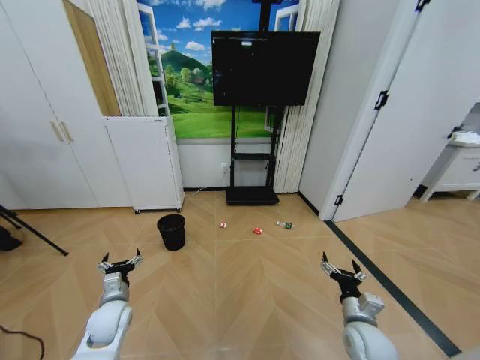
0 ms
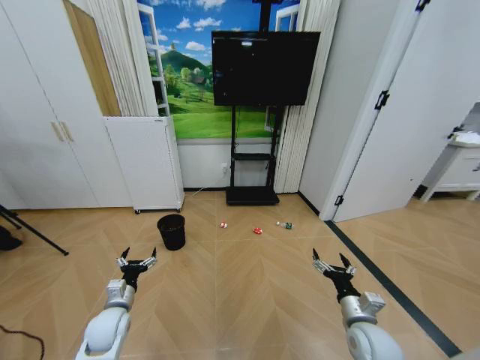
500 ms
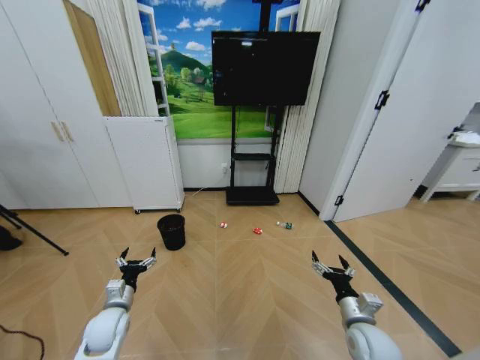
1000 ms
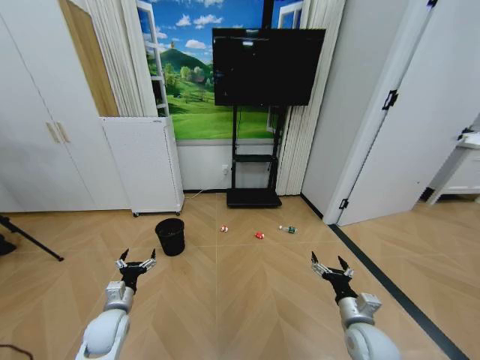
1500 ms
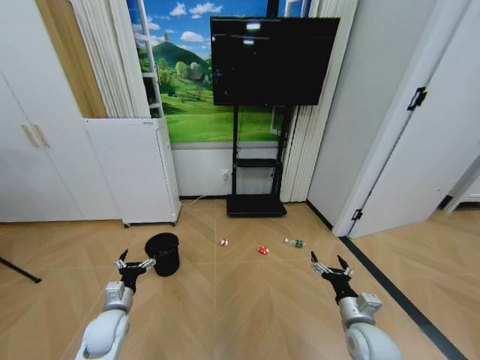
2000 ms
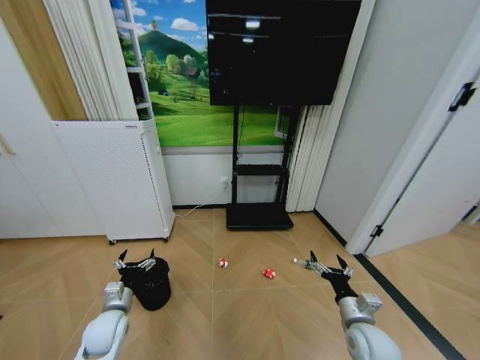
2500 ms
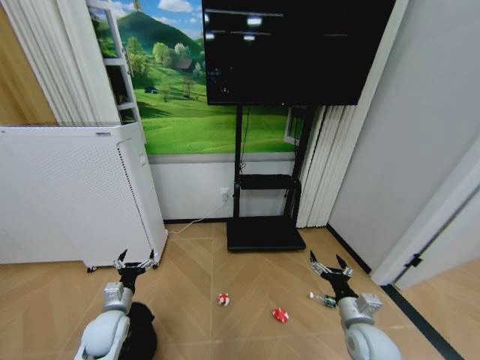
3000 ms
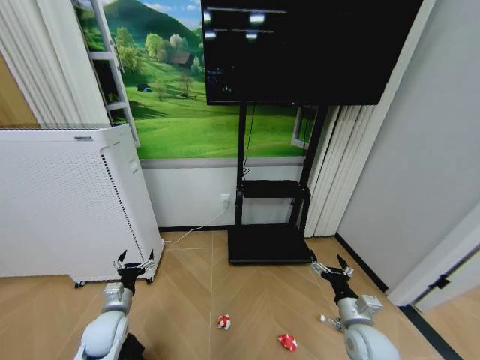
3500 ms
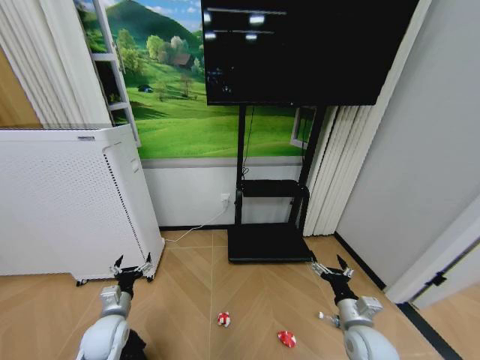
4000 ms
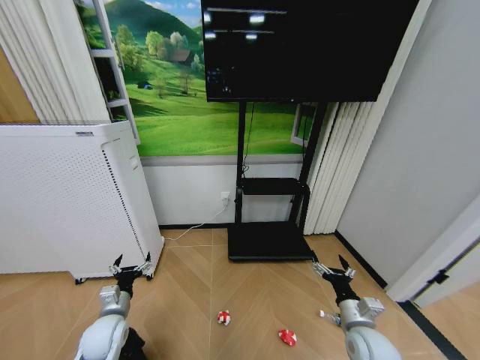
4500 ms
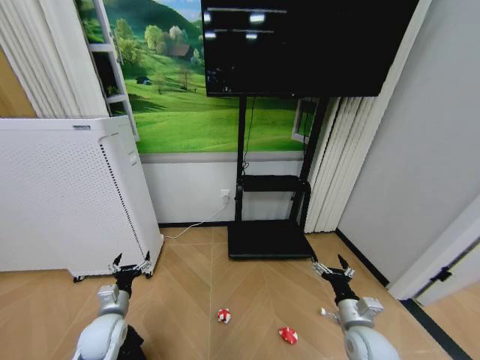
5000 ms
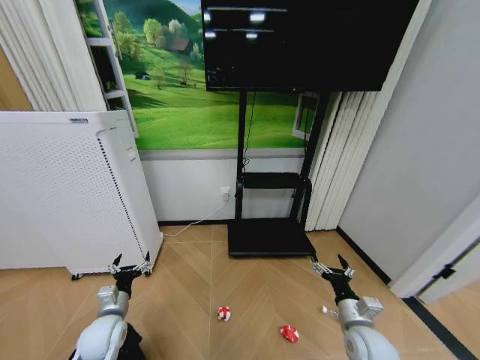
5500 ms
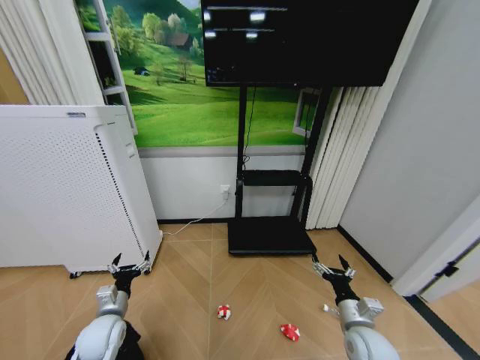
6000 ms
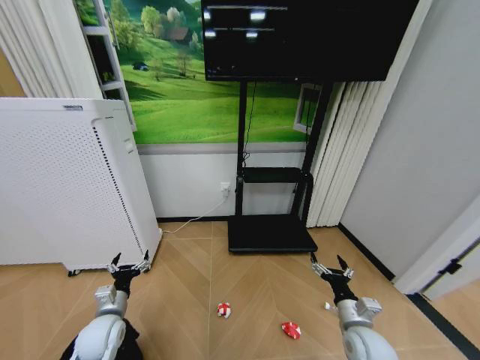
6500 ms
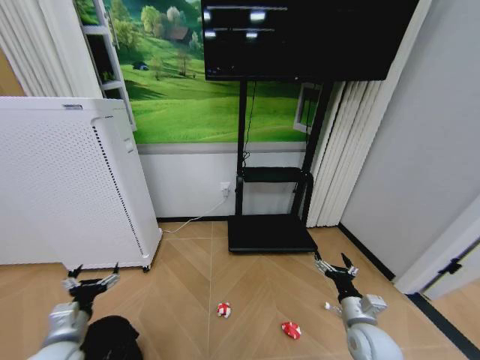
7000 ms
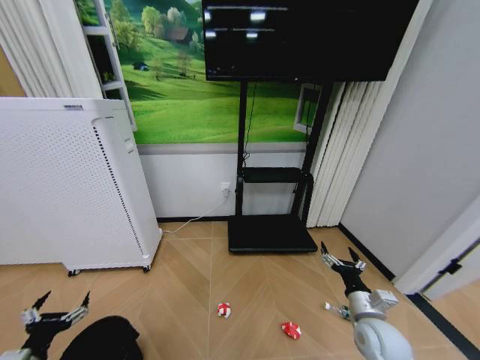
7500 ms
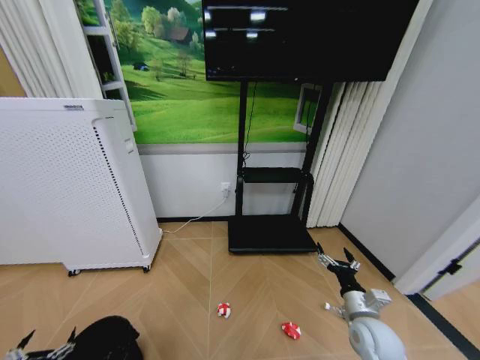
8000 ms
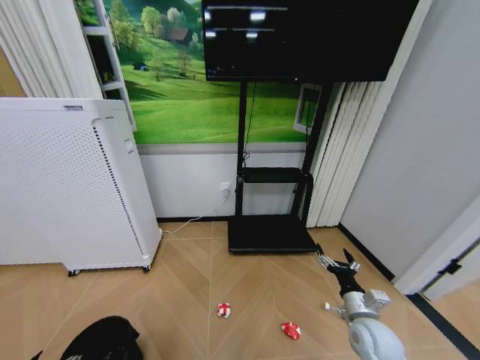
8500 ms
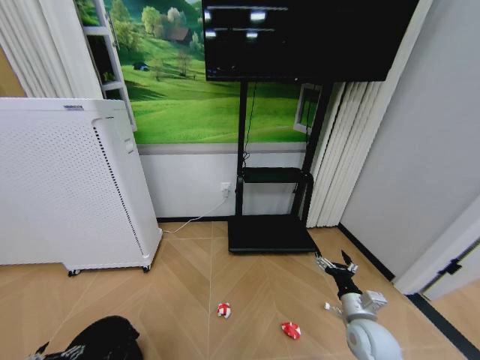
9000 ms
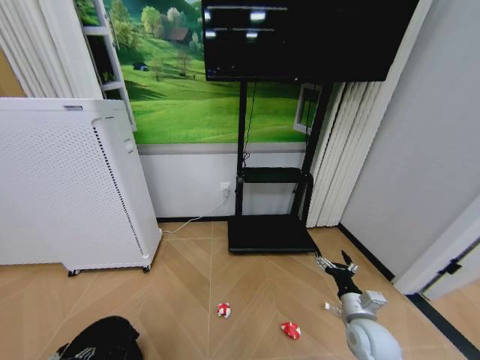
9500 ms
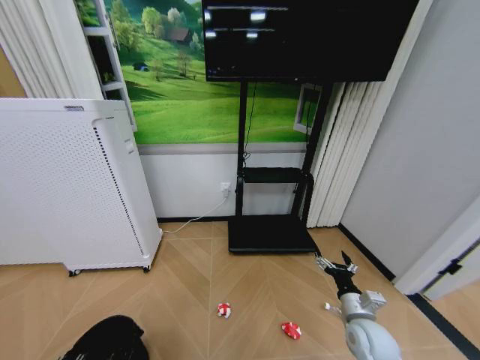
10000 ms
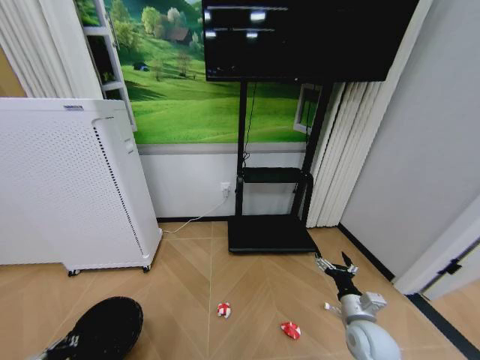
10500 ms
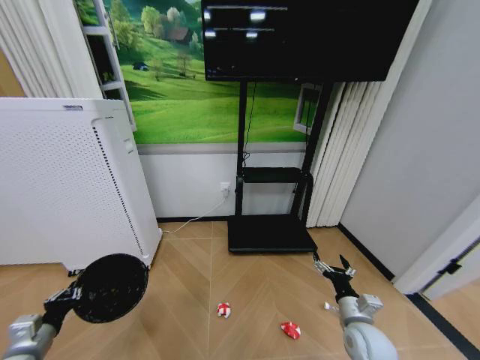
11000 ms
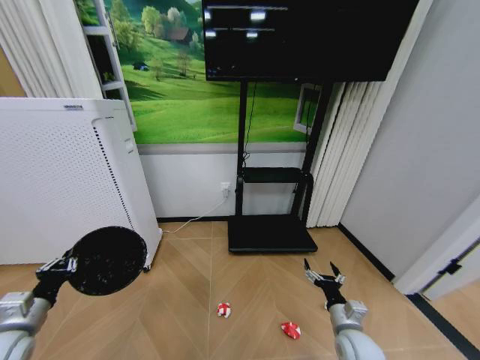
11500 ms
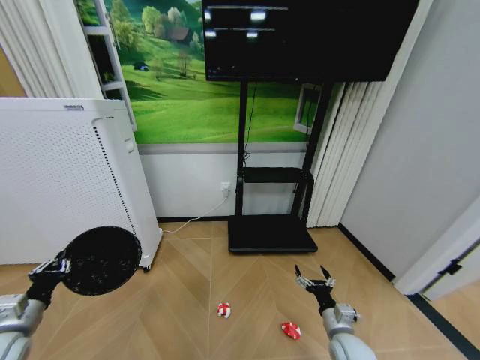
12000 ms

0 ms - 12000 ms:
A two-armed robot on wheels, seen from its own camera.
Task of the whole recording: Pick up the trash bin and place the garbage on the floor into it.
4000 ms - 6000 ms: The two grippers keep their place.
6000 ms - 8000 ms: The left gripper is displaced backward and to the left by some 25 cm.
8000 ms - 10000 ms: The left gripper moves downward, approximately 5 cm, and closes its fingers.
10000 ms - 12000 ms: The left gripper goes roughly 20 cm upward and forward. Meanwhile the right gripper moves downward, approximately 5 cm.

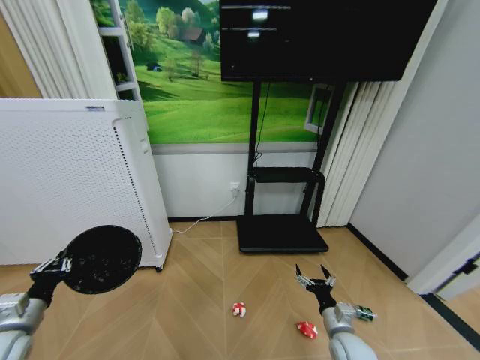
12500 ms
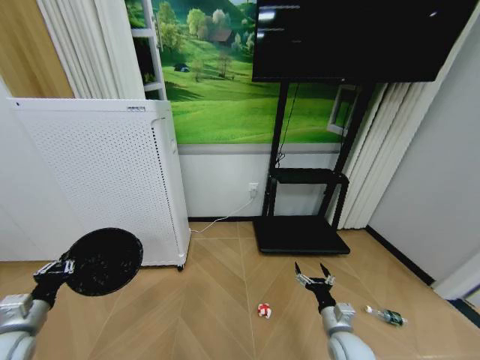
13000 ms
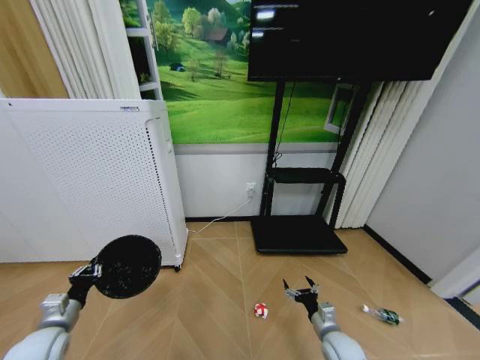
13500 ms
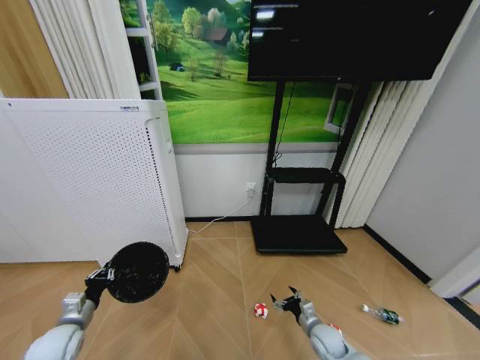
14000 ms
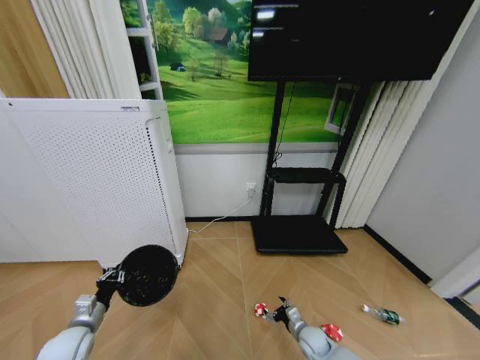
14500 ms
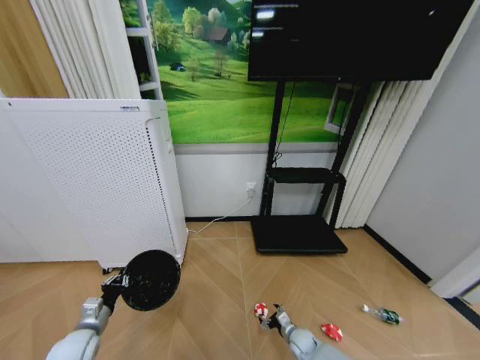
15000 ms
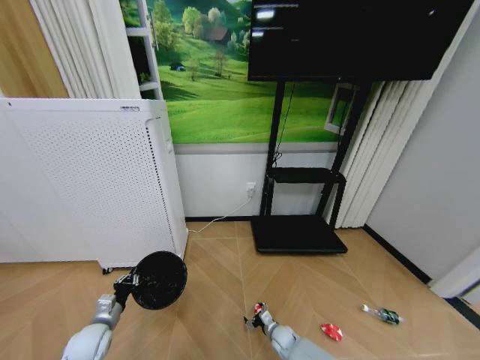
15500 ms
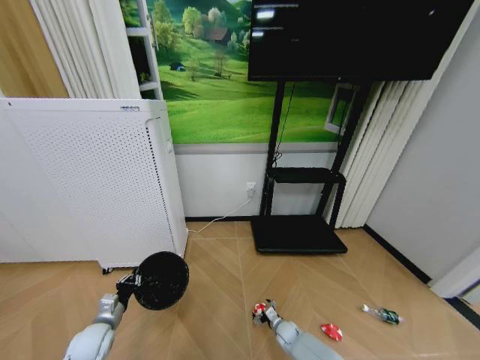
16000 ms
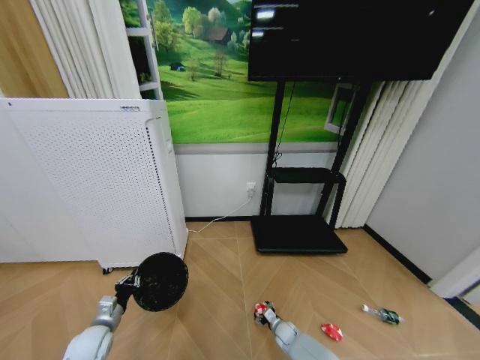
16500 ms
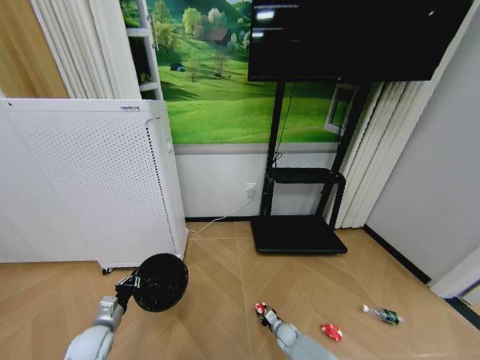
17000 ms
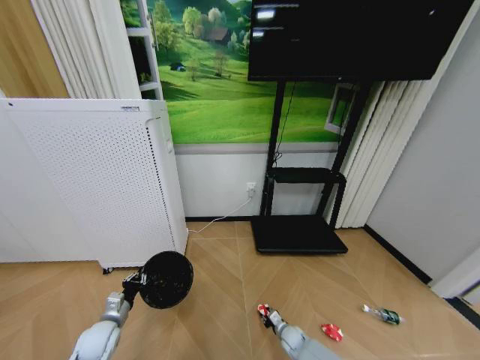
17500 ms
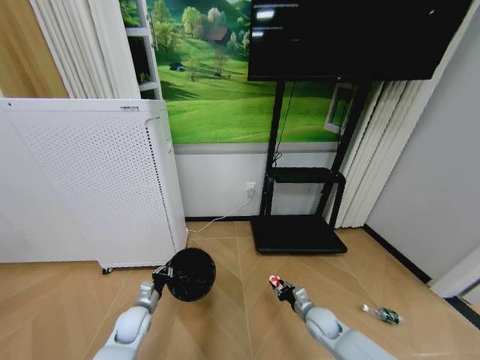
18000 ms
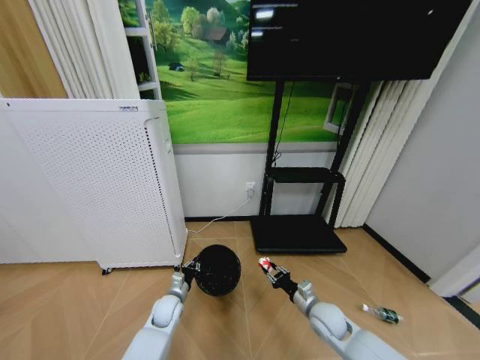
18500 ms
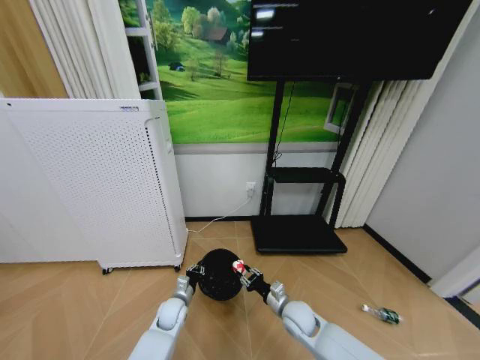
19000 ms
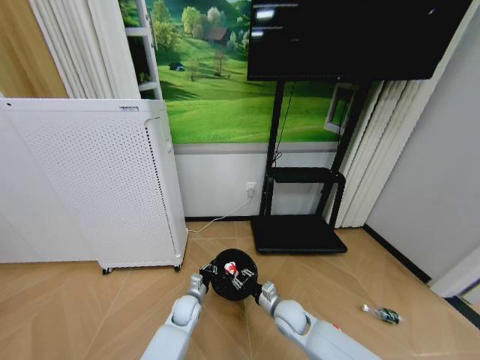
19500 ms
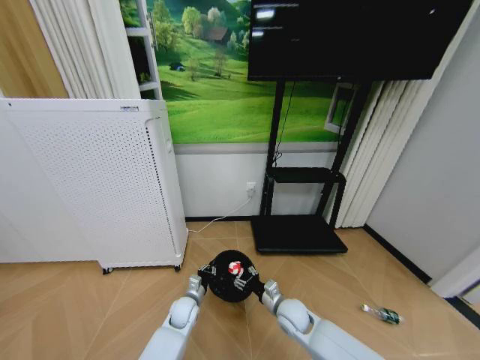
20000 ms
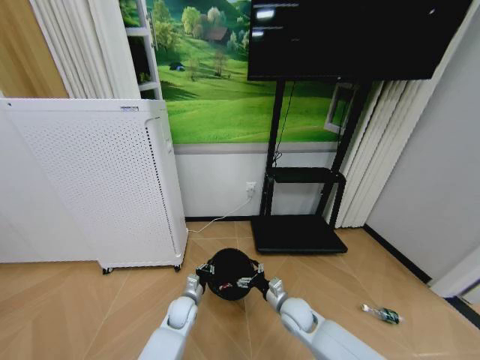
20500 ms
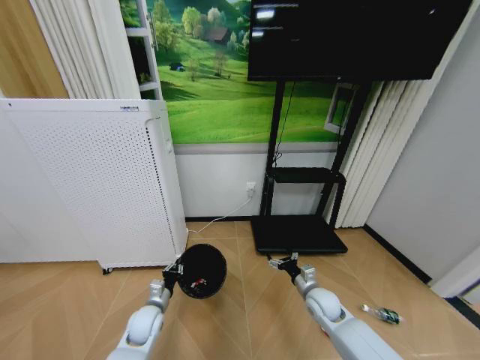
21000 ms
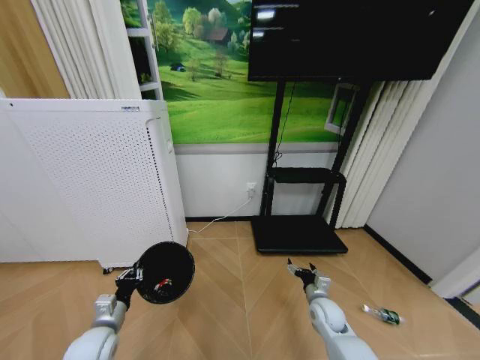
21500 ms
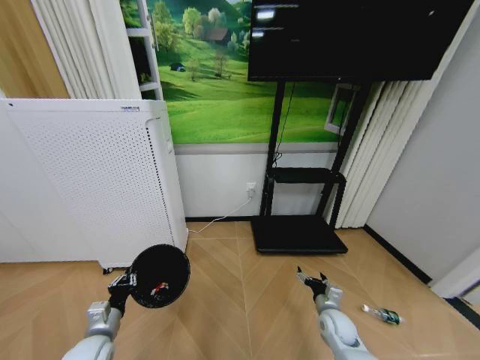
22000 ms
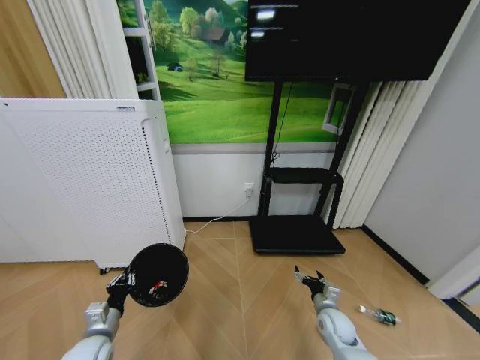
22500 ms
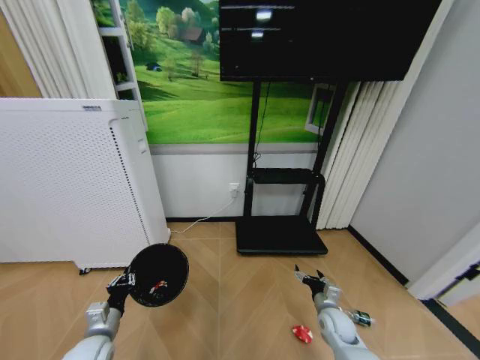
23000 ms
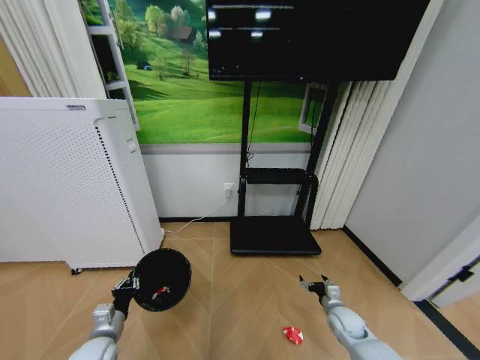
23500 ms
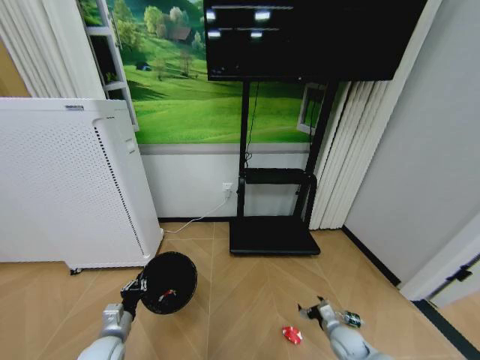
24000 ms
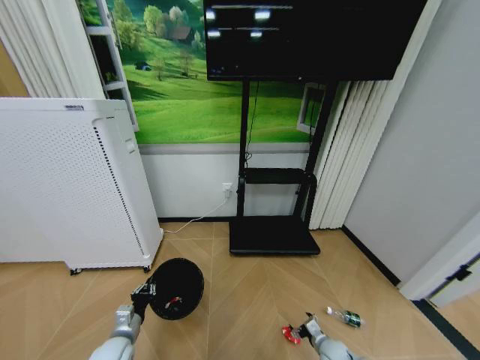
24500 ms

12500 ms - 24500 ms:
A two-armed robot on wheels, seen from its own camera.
Task of the whole recording: Pick up the trash bin and place the garbage on the floor into it.
12500 ms - 14500 ms: The right gripper travels downward and forward by about 15 cm, while the left gripper moves downward and to the right, about 10 cm.
14500 ms - 16500 ms: The right gripper heads downward and to the left, covering some 10 cm. Meanwhile the left gripper moves roughly 5 cm.
16500 ms - 18500 ms: The left gripper is displaced to the right and forward by approximately 20 cm; the right gripper shifts some 25 cm upward, and closes its fingers.
18500 ms - 20500 ms: The right gripper travels to the left by some 10 cm, and opens its fingers.
20500 ms - 22500 ms: The right gripper goes some 10 cm to the right; the left gripper goes approximately 25 cm to the left, backward and upward.
22500 ms - 24500 ms: The right gripper is displaced downward by about 10 cm, while the left gripper travels downward by some 5 cm.

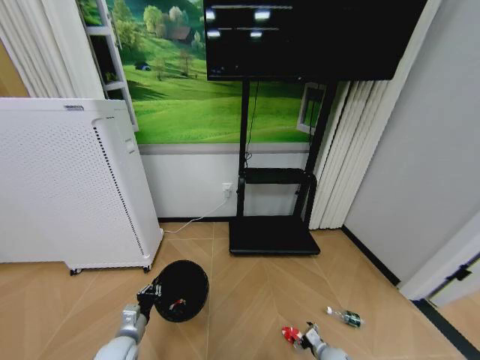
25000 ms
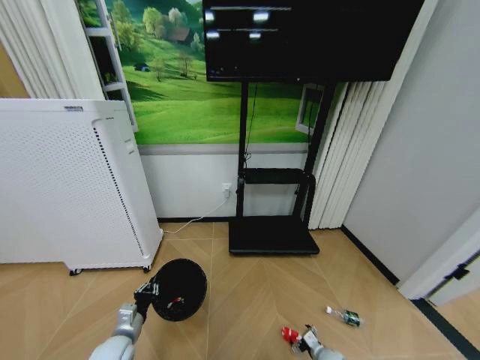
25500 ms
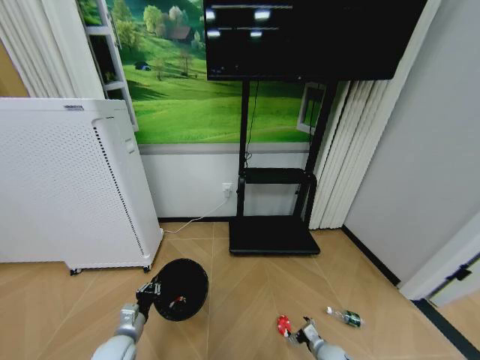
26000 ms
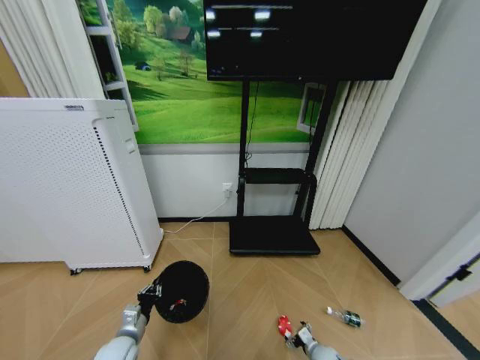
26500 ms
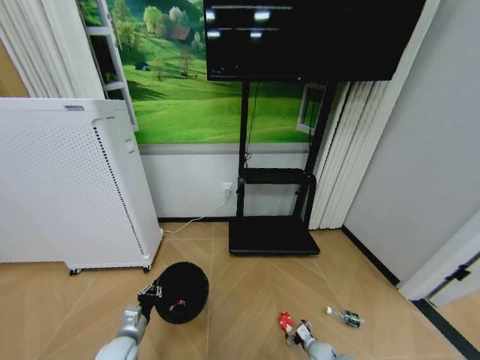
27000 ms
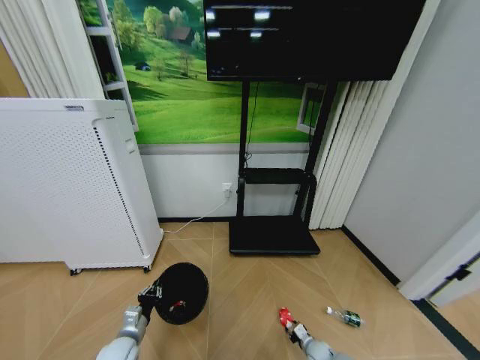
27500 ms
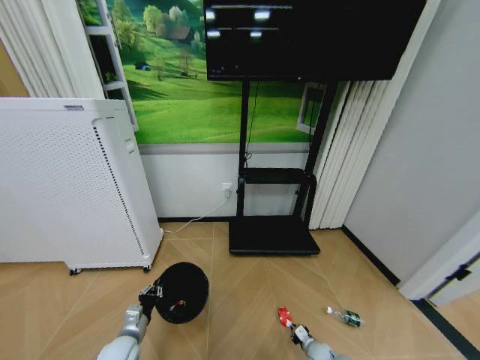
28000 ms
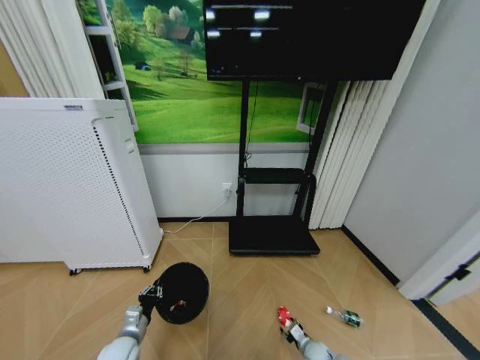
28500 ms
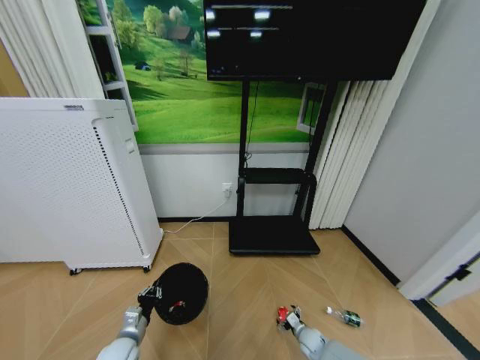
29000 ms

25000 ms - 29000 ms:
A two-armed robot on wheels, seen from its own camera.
Task of the whole recording: Pick up the trash bin and place the garbage on the floor into it.
25000 ms - 27000 ms: The grippers move only a little.
27000 ms - 29000 ms: The right gripper changes place by some 5 cm, and closes, then opens again.
